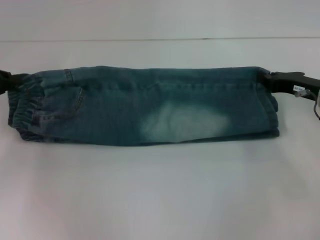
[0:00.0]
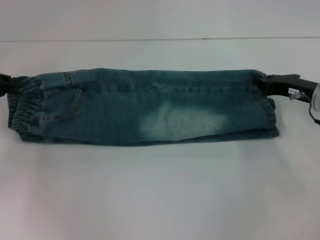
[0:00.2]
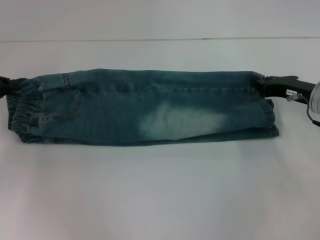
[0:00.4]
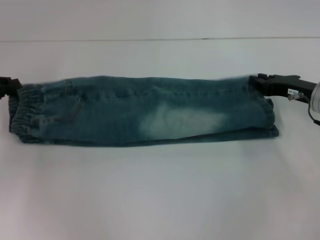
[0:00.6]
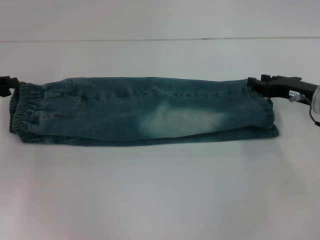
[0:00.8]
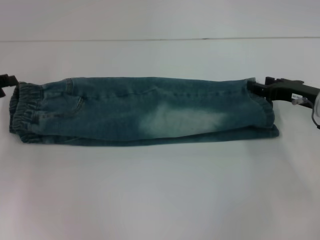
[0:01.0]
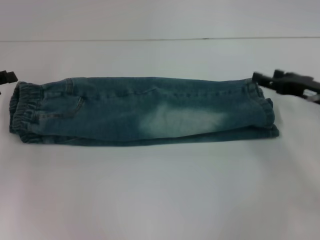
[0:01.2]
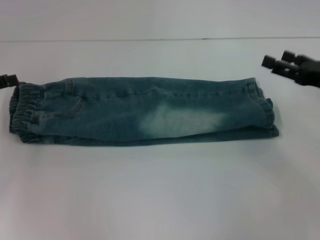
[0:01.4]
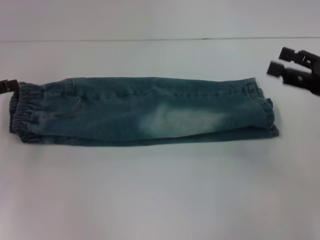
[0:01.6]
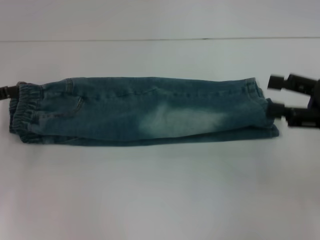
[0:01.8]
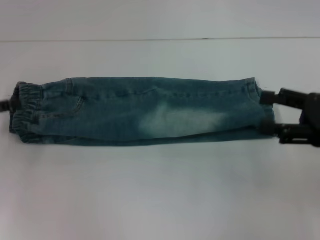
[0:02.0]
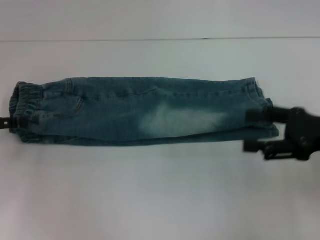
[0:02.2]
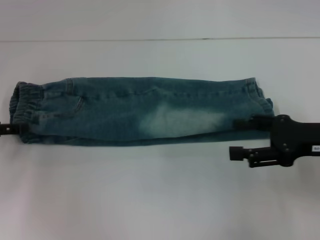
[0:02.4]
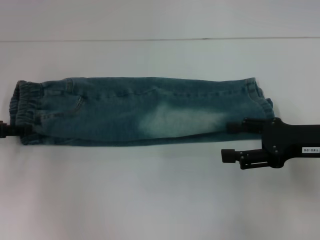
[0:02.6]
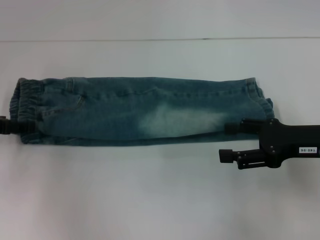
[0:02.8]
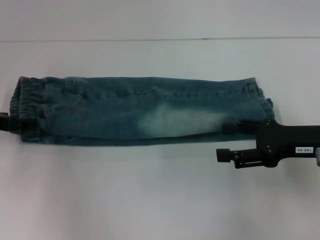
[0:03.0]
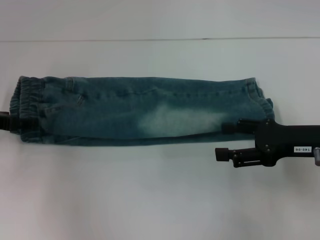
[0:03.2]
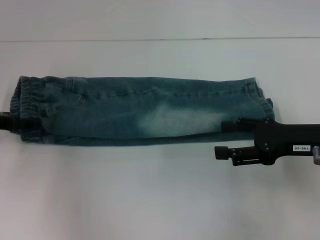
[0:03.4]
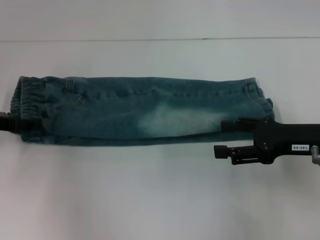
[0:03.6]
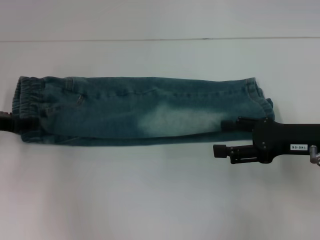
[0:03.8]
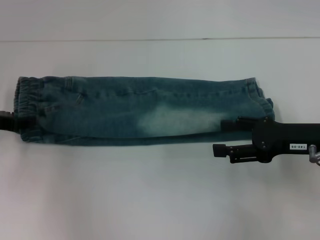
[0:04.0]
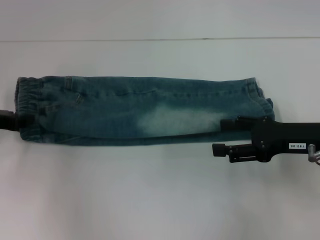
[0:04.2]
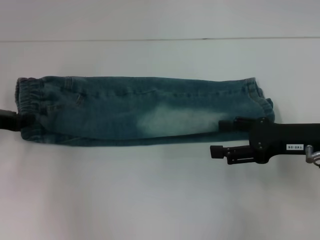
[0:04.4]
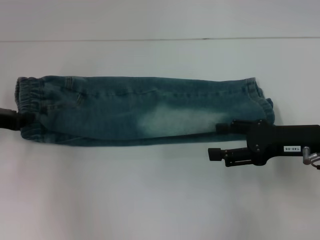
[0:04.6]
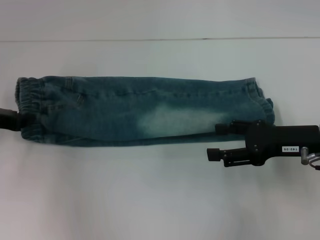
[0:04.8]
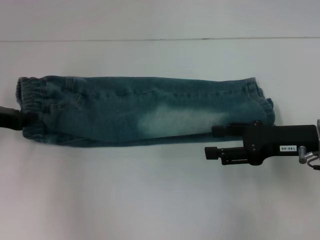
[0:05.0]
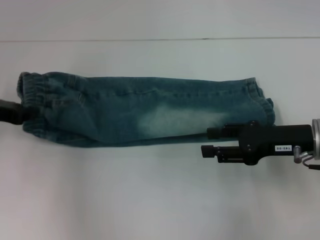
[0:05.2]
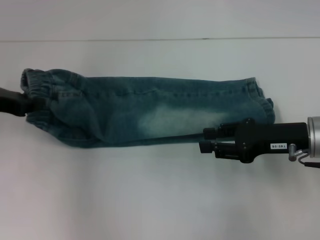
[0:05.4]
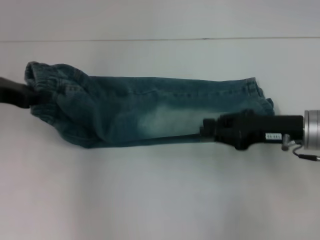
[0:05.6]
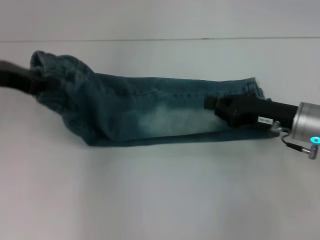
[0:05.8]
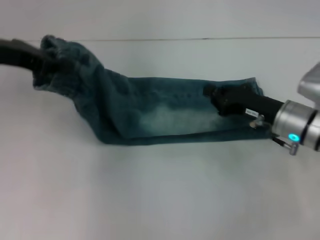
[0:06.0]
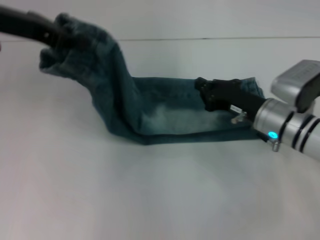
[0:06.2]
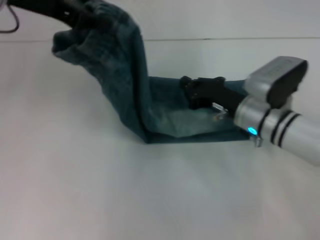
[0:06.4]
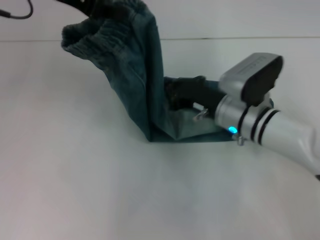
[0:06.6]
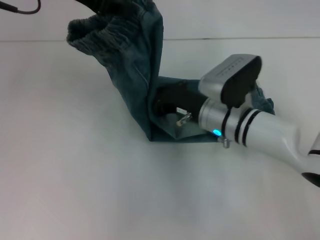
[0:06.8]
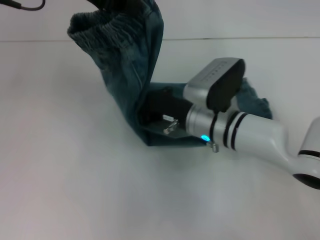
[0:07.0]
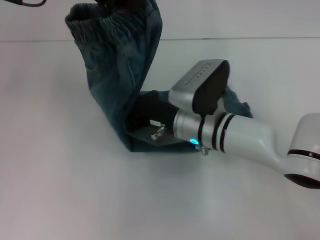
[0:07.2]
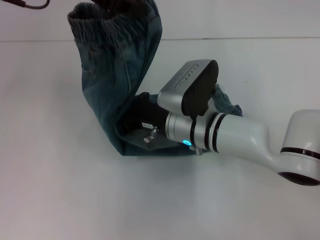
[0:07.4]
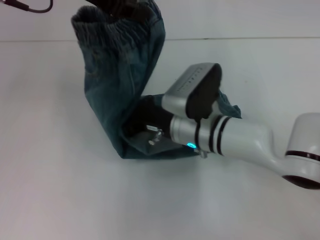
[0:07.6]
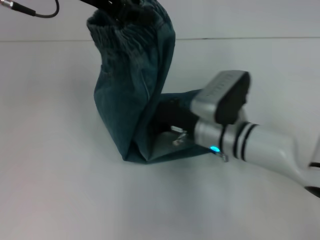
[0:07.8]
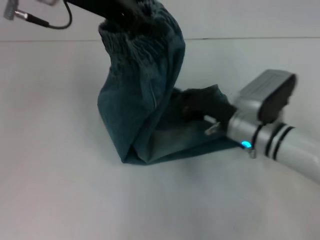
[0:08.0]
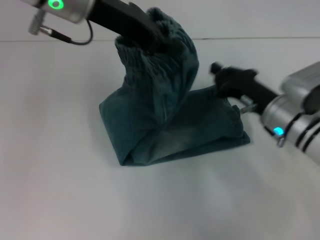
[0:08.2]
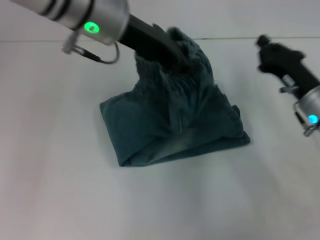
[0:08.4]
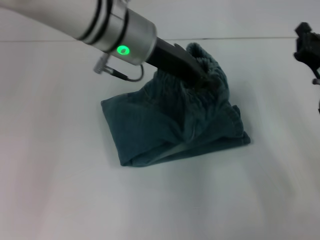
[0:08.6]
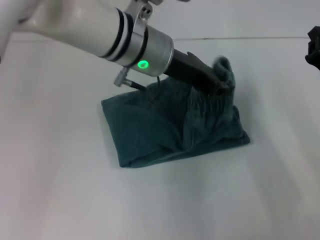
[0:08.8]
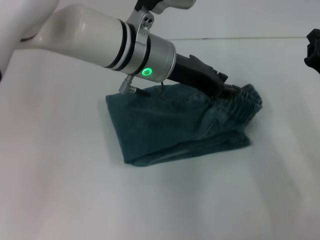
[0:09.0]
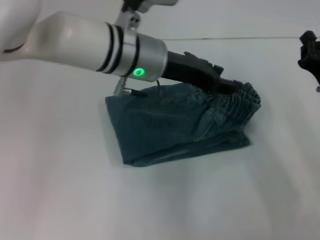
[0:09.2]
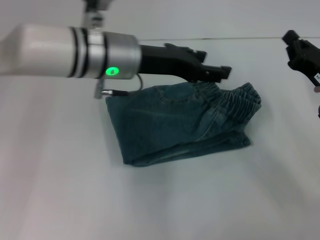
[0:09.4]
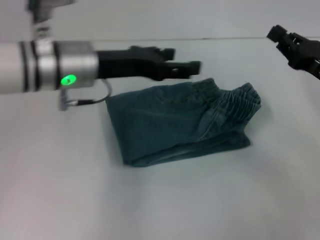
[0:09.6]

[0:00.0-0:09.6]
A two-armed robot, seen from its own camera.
Step, 0:00.8 to 0:04.6: Hold the waistband with your left hand.
Step, 0:04.8 to 0:07.6: Press the middle of the pants with your right hand.
Step, 0:07.8 to 0:09.0: Fold to the right with your left hand.
0:00.0 to 0:01.6: The right gripper moves backward and upward, roughly 10 cm, and opens, while the left gripper opens.
0:01.6 to 0:03.2: The right gripper goes some 5 cm to the left. The left gripper shifts by roughly 5 cm.
0:03.2 to 0:04.8: The left gripper closes its fingers.
0:04.8 to 0:06.4: The right gripper goes approximately 10 cm to the left and forward, and closes. The left gripper is displaced upward and to the right by approximately 20 cm.
0:06.4 to 0:08.0: The right gripper moves approximately 10 cm to the left and comes back; the left gripper moves to the right, about 5 cm.
0:08.0 to 0:09.6: The right gripper travels to the right and upward by some 15 cm. The left gripper heads downward, covering about 10 cm, and opens up.

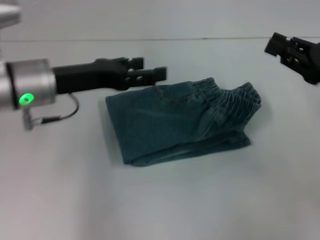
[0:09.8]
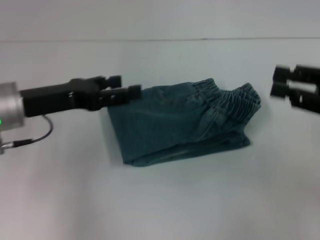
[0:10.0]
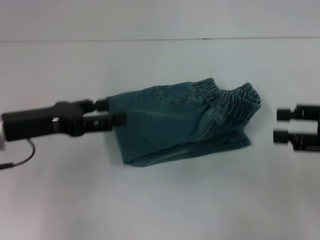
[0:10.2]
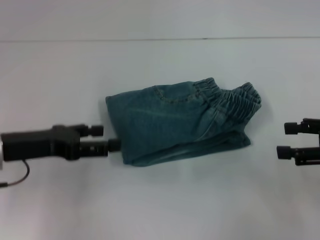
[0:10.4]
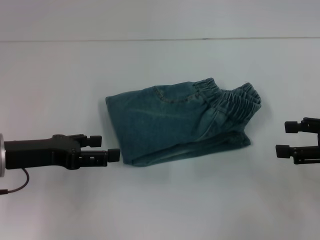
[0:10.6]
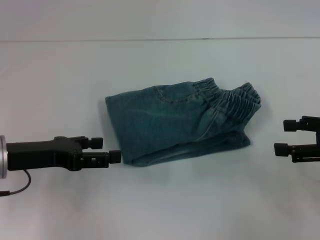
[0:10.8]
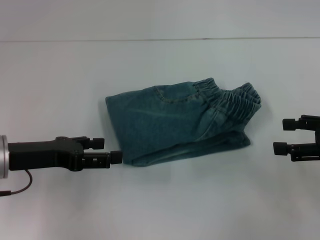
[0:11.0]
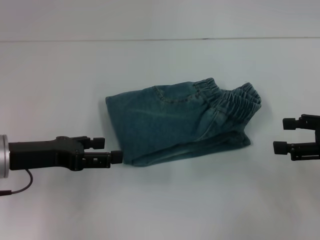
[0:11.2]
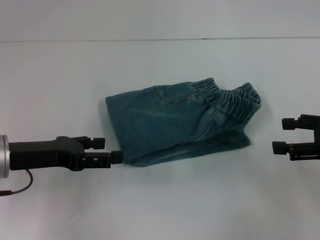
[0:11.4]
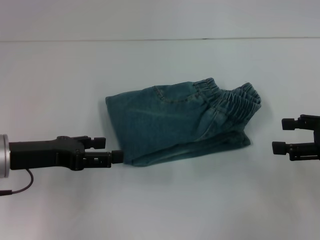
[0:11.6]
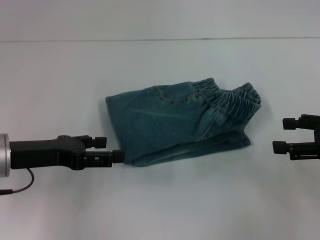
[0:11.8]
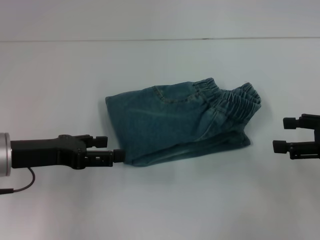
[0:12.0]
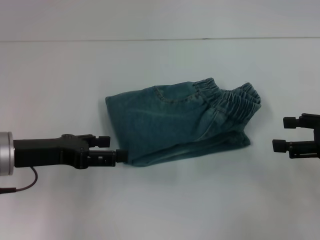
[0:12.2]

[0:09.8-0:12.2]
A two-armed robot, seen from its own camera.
0:09.8 to 0:11.0: The right gripper opens its fingers, while the left gripper travels backward, to the left and downward by about 10 cm.
0:11.0 to 0:12.2: Both grippers stay about where they are.

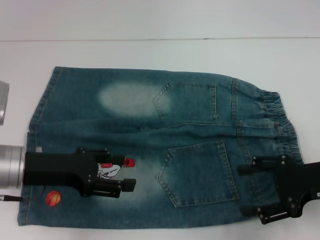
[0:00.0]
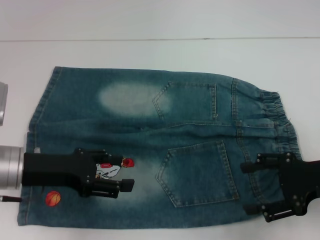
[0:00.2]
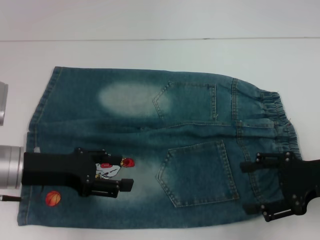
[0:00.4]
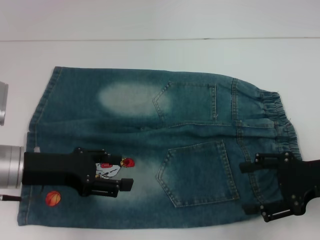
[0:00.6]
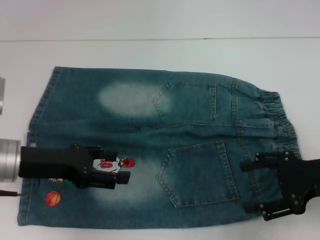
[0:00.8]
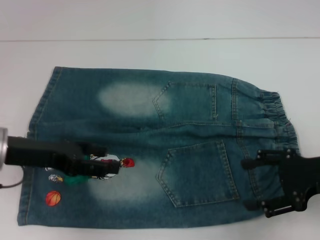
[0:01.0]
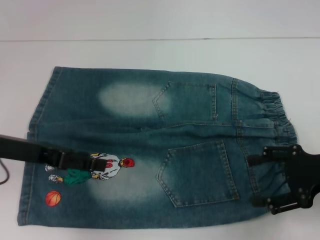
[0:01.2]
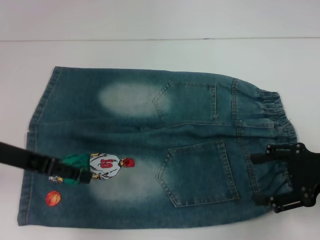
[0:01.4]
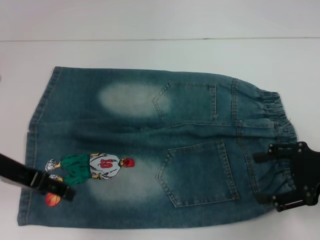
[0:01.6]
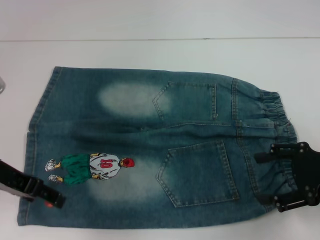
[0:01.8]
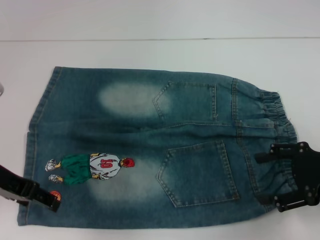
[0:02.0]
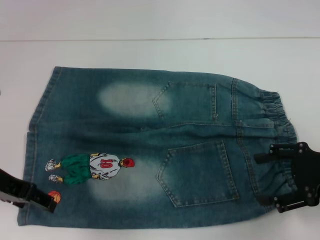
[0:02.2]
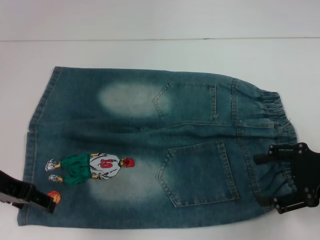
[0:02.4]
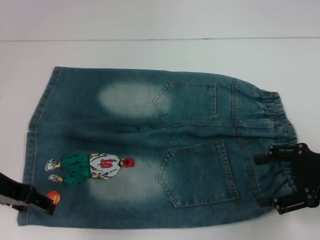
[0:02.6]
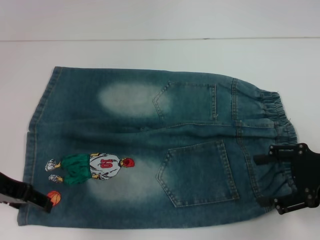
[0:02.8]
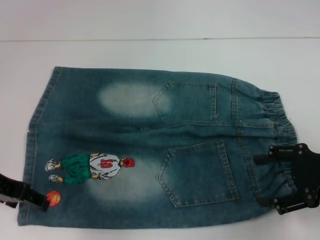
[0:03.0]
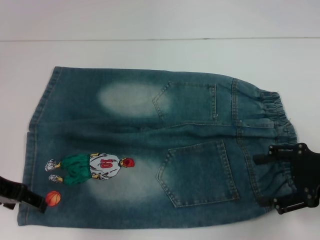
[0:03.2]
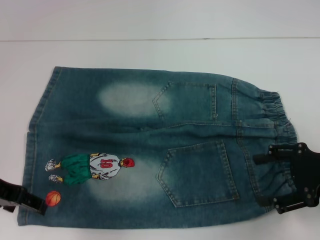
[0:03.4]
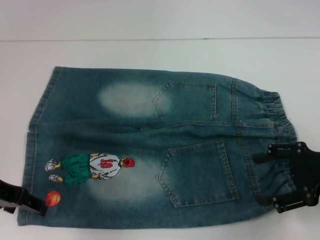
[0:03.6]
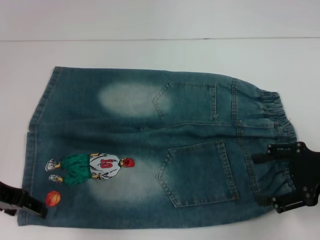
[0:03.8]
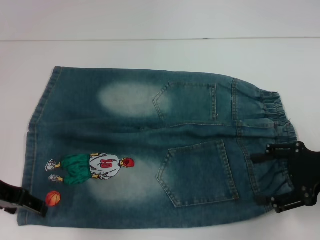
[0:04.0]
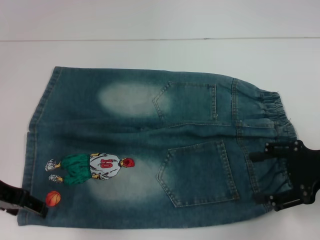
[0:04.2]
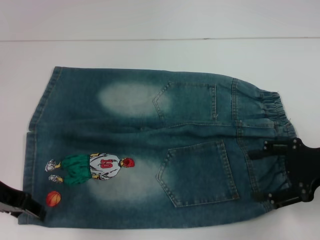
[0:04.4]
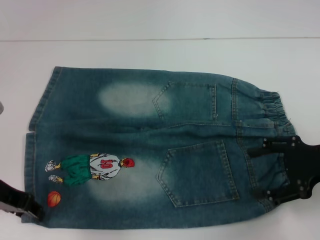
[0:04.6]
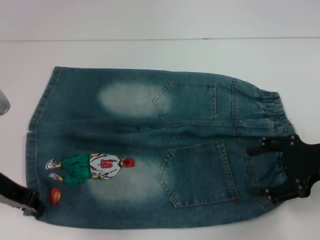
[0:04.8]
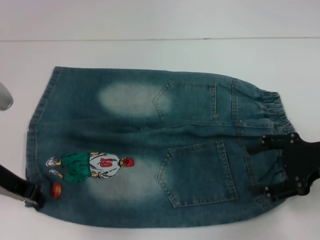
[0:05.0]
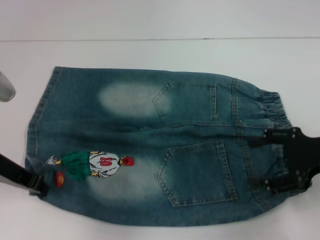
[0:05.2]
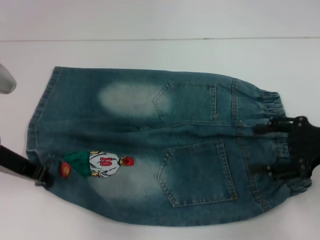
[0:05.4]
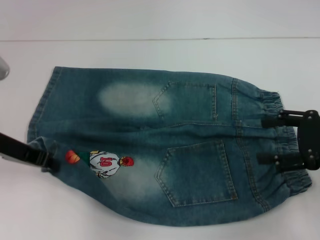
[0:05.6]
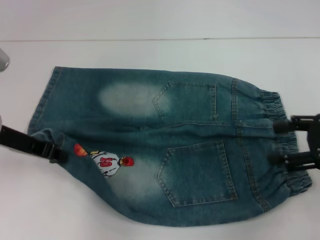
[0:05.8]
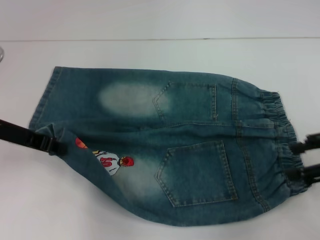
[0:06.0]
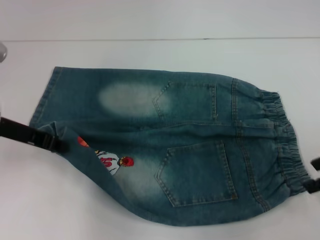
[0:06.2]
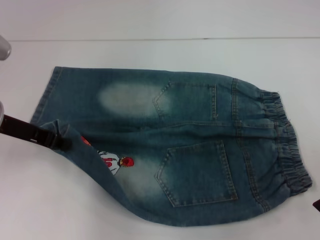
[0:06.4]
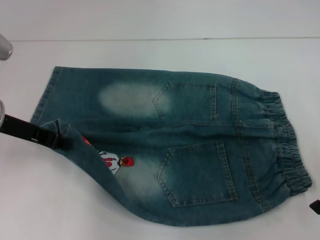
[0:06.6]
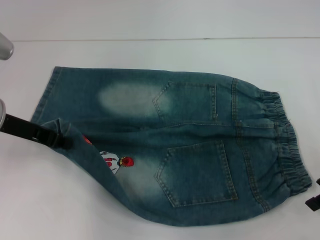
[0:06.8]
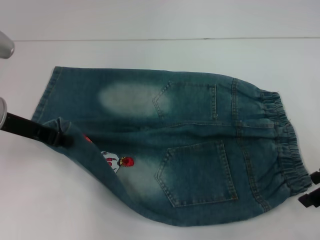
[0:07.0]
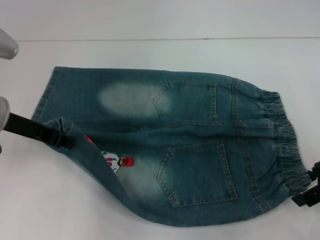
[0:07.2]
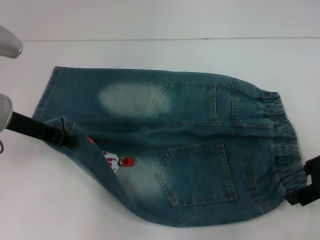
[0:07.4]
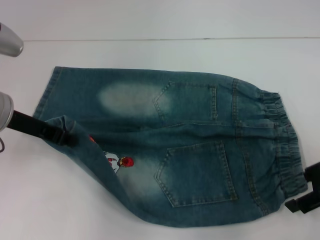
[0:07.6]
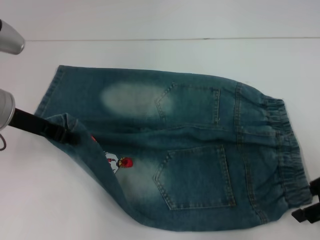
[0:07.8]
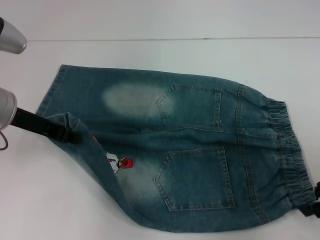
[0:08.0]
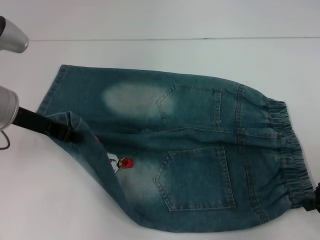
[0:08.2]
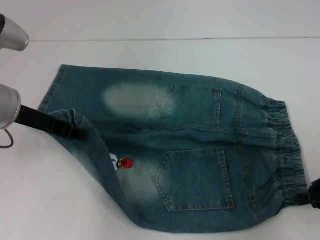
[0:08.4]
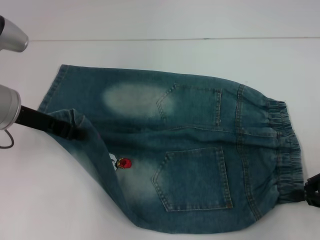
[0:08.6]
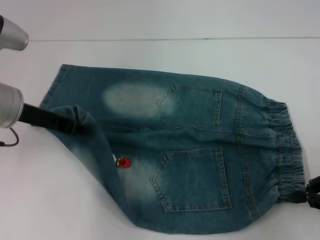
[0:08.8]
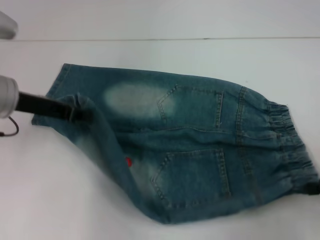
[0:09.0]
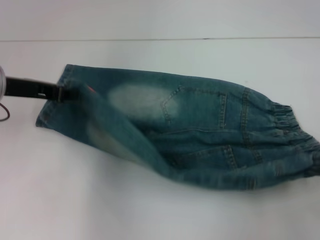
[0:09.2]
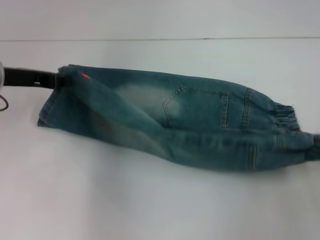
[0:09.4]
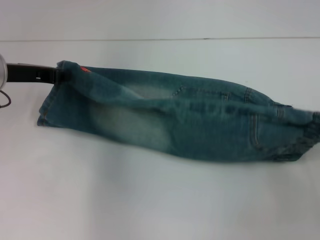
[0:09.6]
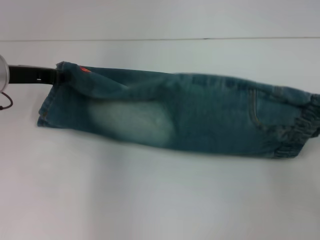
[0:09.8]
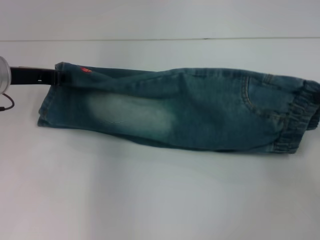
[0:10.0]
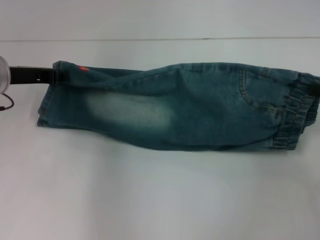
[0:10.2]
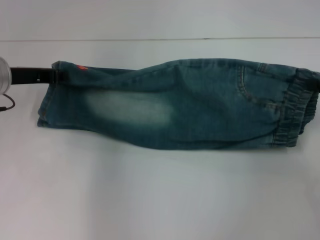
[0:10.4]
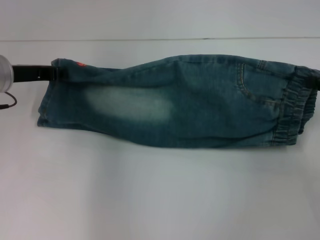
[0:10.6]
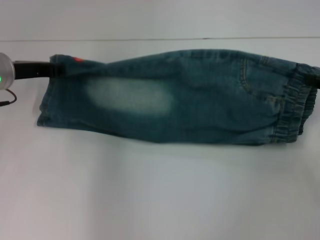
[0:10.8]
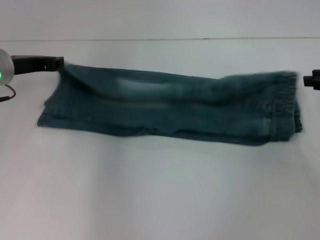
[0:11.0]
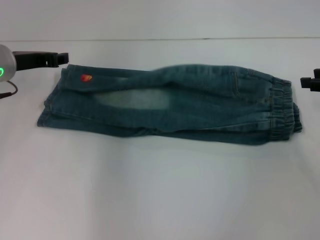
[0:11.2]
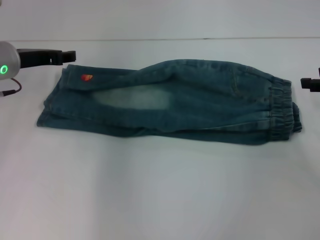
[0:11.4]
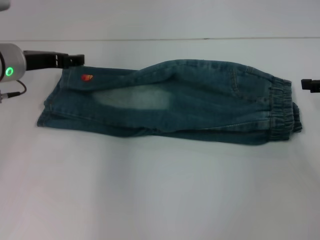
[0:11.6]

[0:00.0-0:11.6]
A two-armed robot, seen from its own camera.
Step, 0:00.0 to 0:04.6: Grab the lower left pant leg with your left hand.
Step, 0:04.8 to 0:07.8: Hold the lower right waistband with your right hand.
Step, 0:08.2 to 0:11.4: Fold upward with your right hand.
0:00.0 to 0:01.4: The left gripper travels upward by roughly 5 cm.
0:02.8 to 0:04.4: The grippers move only a little.
0:04.4 to 0:05.8: The left gripper closes its fingers.
0:07.2 to 0:08.8: The right gripper moves backward, approximately 5 cm, and closes.
0:08.8 to 0:10.2: The right gripper heads forward and upward, covering some 10 cm.
0:10.2 to 0:11.6: The right gripper opens, while the left gripper opens up.
